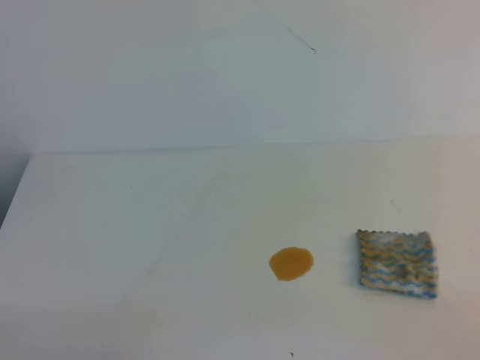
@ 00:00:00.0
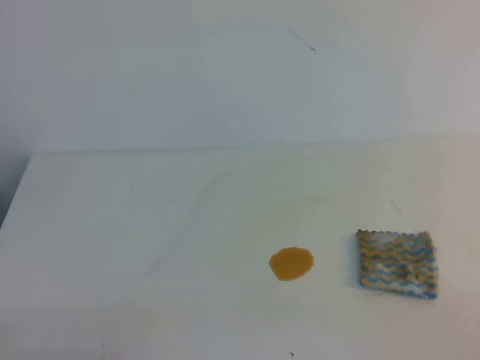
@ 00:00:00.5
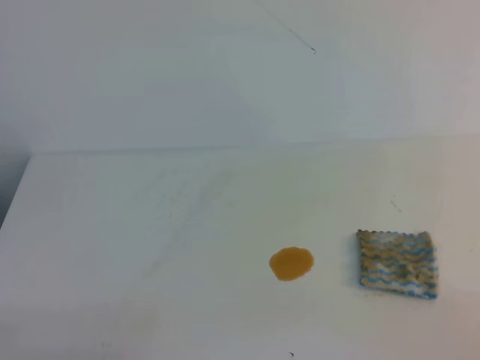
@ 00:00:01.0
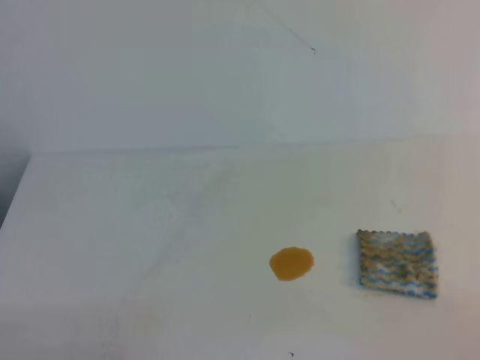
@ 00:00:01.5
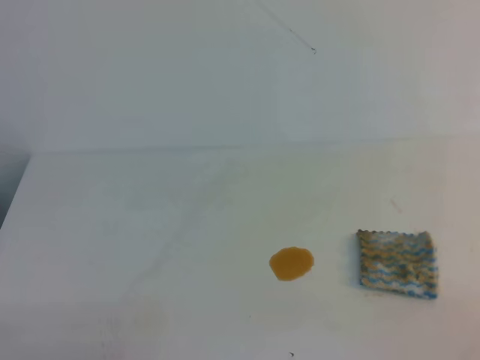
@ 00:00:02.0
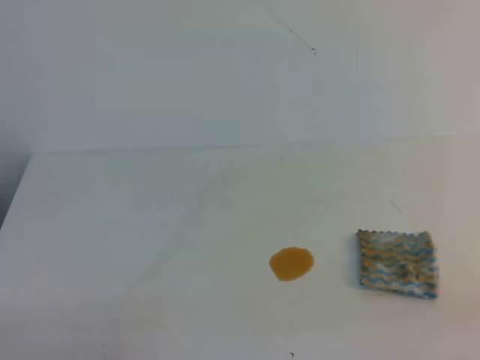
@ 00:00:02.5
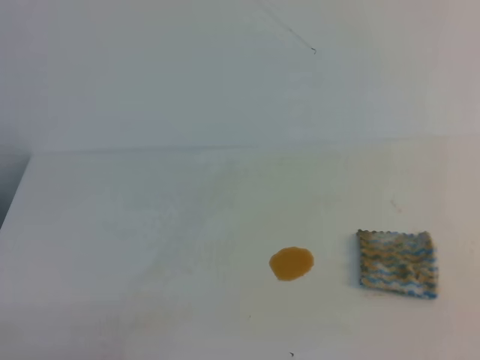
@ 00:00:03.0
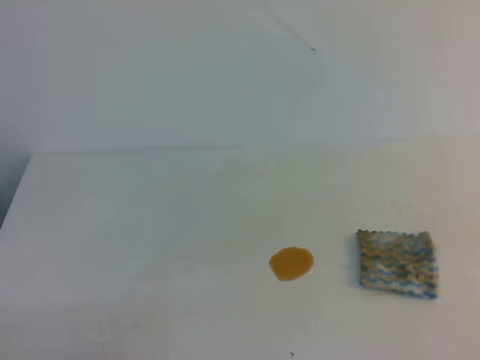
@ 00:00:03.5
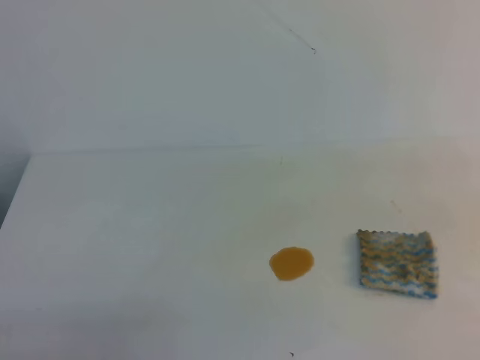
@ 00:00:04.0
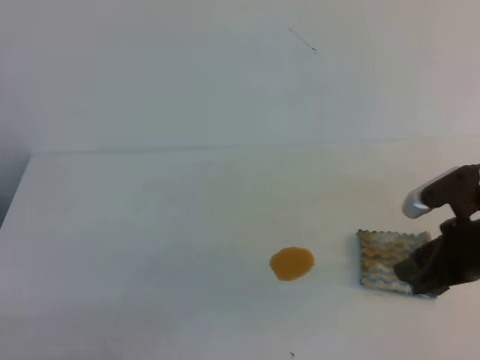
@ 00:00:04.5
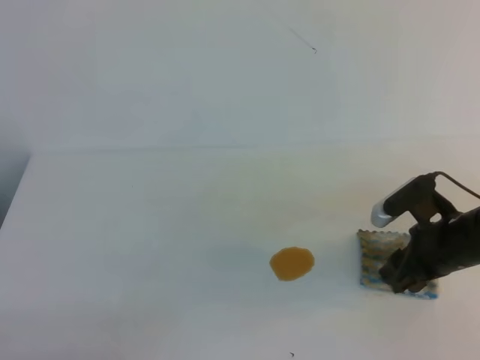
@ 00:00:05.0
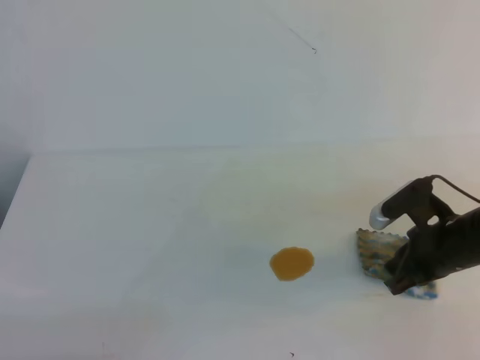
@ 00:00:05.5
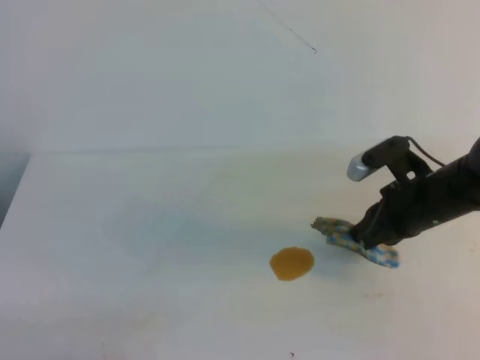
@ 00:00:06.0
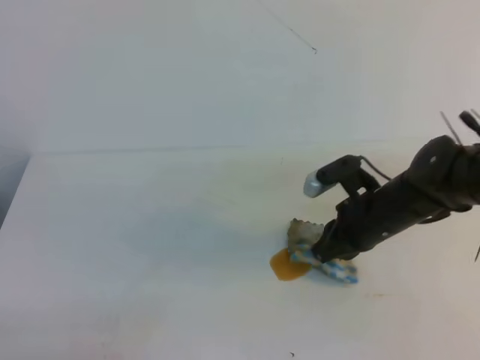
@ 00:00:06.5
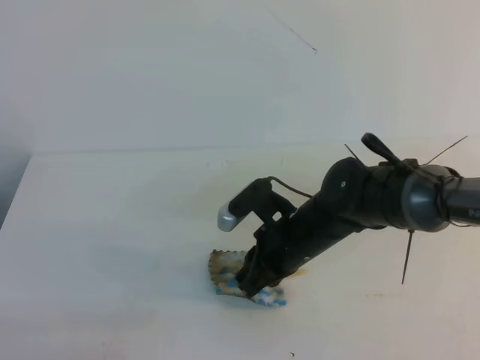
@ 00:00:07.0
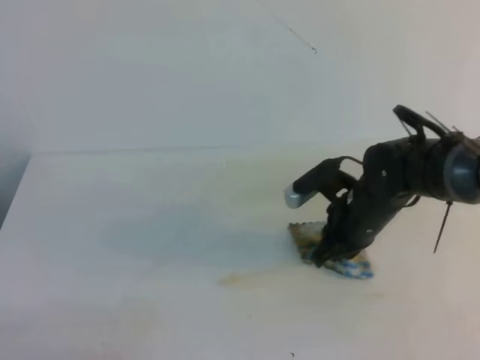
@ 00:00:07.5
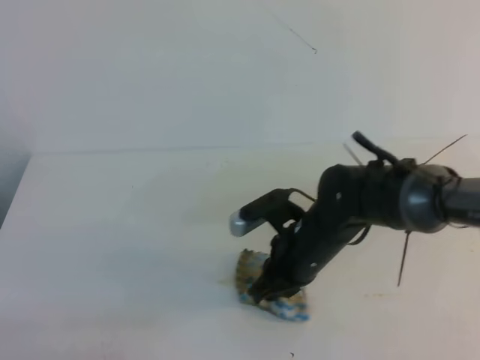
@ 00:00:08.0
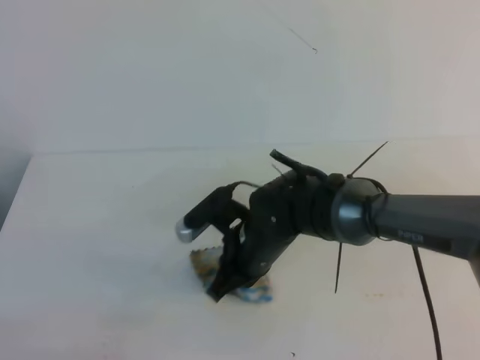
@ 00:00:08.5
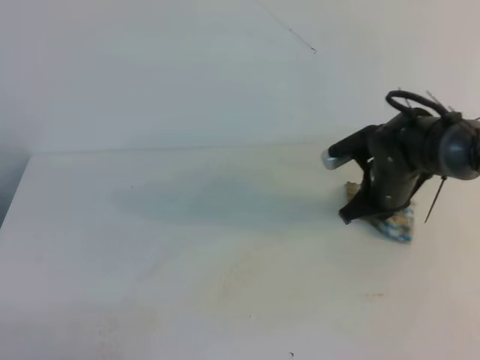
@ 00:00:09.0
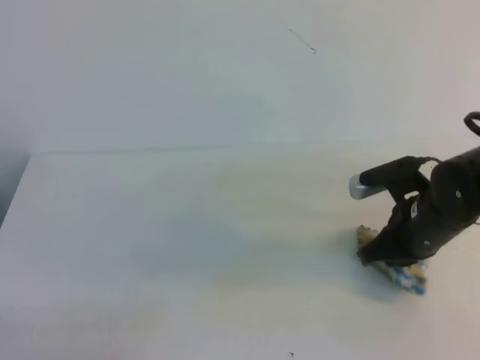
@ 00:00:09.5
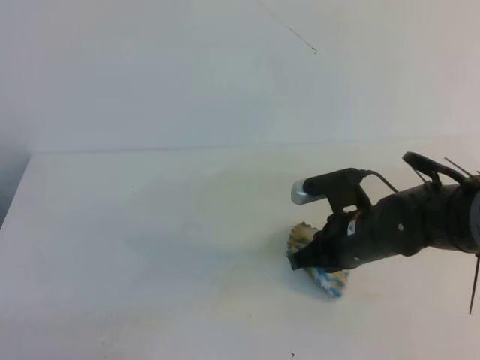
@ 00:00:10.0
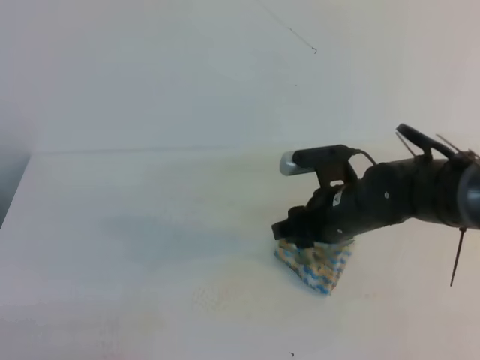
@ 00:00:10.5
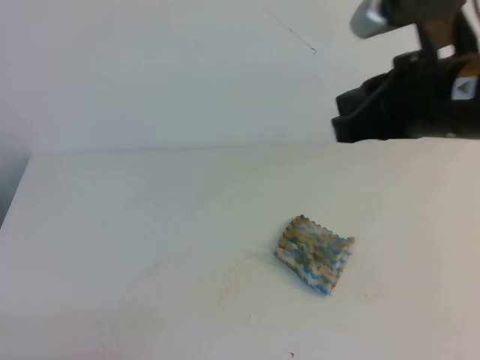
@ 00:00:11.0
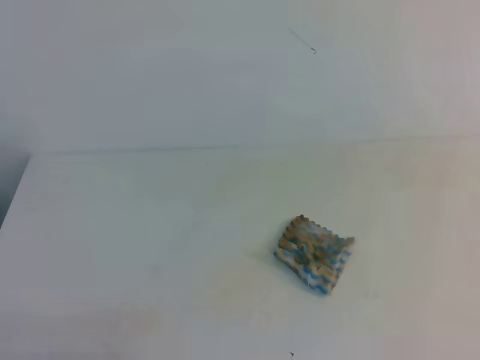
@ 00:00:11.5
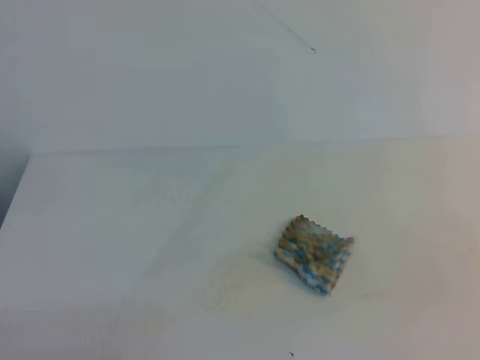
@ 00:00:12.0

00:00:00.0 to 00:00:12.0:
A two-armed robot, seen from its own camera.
00:00:00.0 to 00:00:02.0: The two grippers keep their place.
00:00:04.0 to 00:00:06.0: The right gripper heads forward, downward and to the left, covering some 25 cm, and opens, then closes again.
00:00:06.0 to 00:00:08.0: The right gripper swings left and right, some 15 cm each way, with 2 reversals.
00:00:08.0 to 00:00:10.0: The right gripper moves left and right over some 15 cm, changing direction 2 times.
00:00:10.0 to 00:00:12.0: The right gripper heads backward, to the right and upward, covering roughly 35 cm, and opens and closes again.

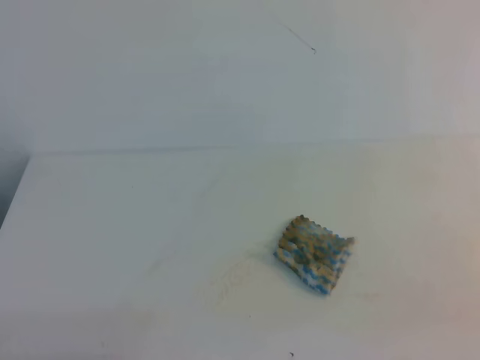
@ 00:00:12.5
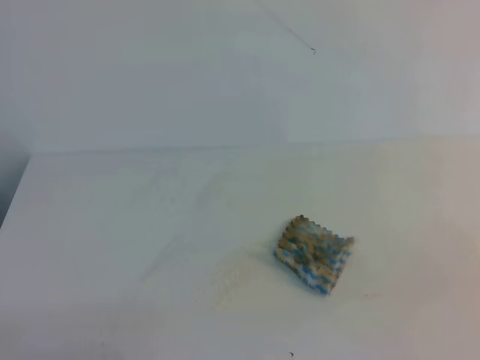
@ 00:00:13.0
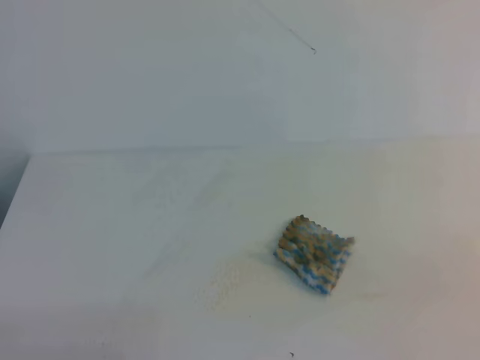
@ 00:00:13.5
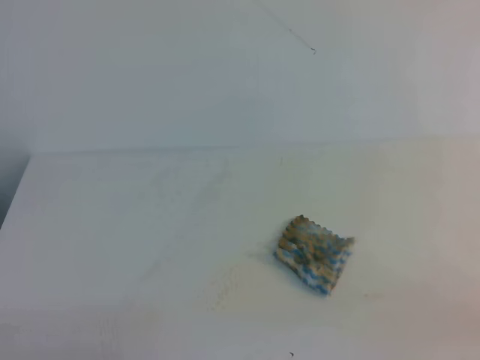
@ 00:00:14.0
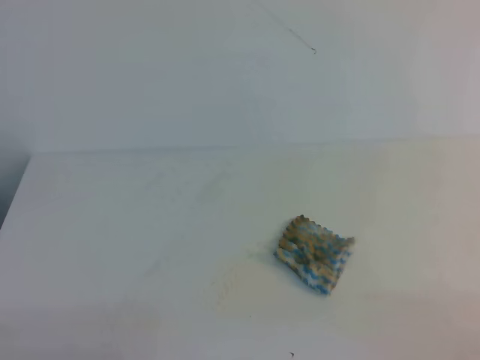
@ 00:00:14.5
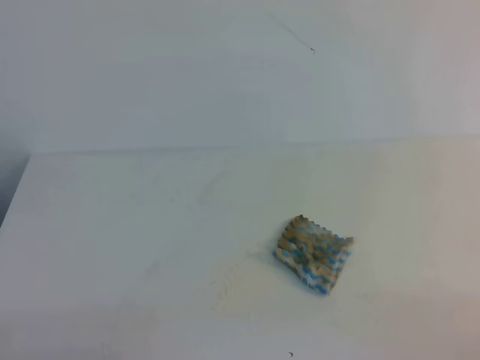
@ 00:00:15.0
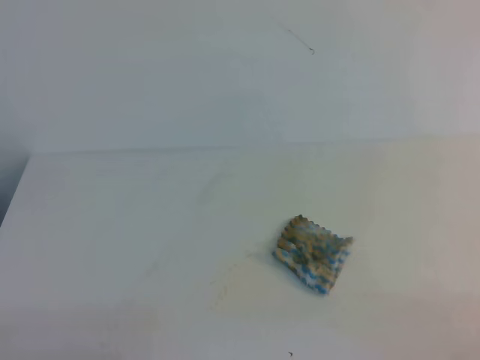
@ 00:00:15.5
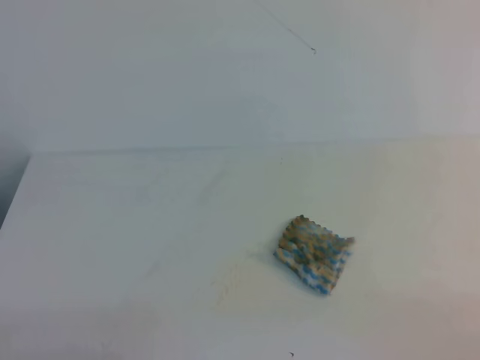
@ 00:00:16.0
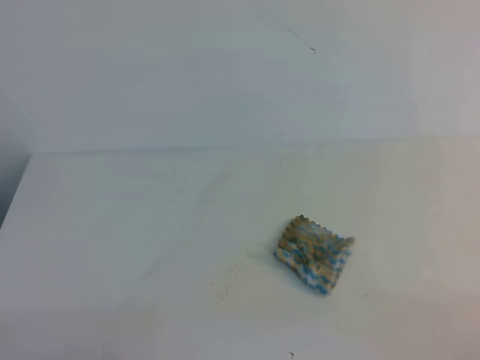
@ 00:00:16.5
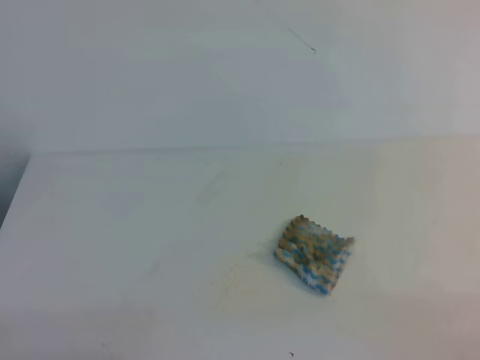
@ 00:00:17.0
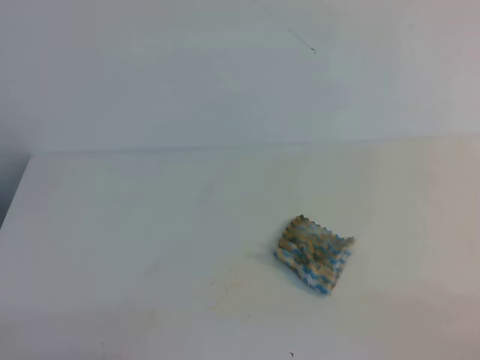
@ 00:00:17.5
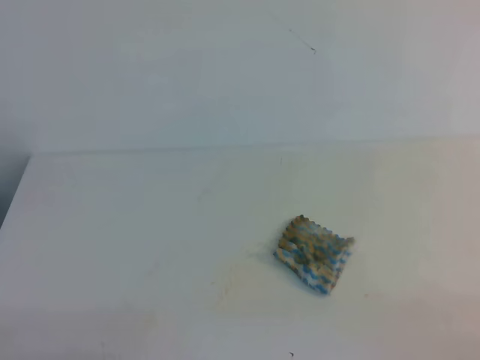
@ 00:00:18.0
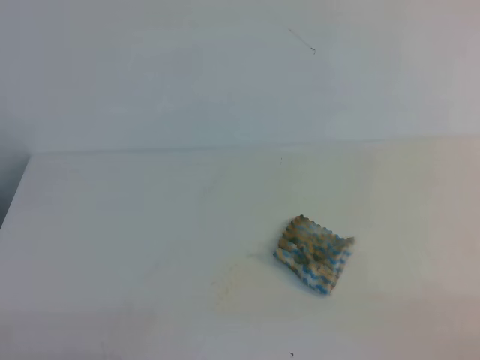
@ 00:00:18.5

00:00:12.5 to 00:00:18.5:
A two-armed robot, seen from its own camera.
00:00:14.5 to 00:00:18.5: Both grippers stay put.
